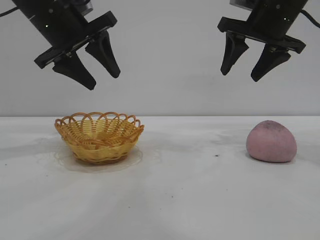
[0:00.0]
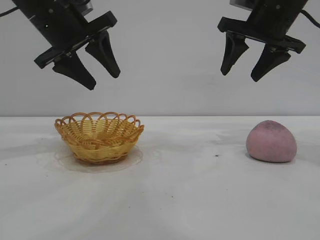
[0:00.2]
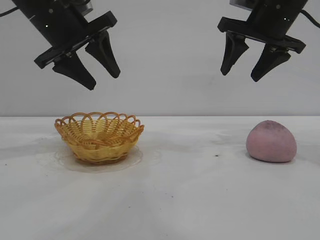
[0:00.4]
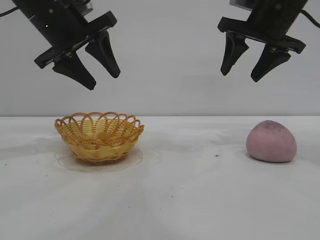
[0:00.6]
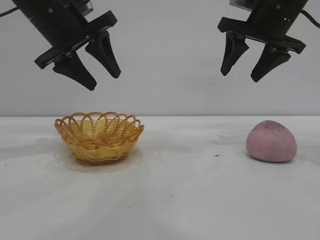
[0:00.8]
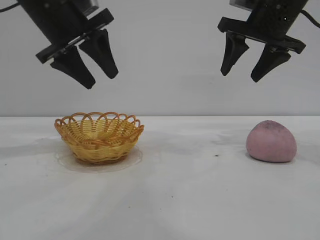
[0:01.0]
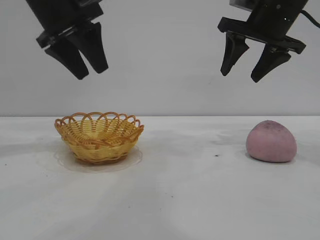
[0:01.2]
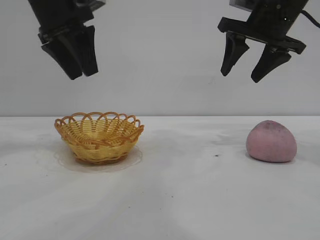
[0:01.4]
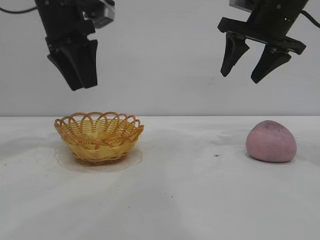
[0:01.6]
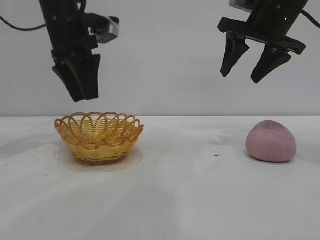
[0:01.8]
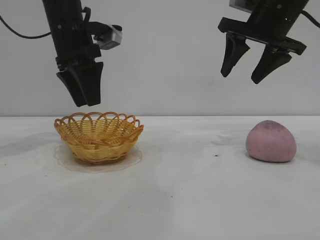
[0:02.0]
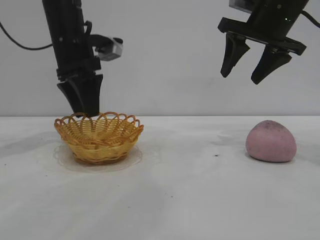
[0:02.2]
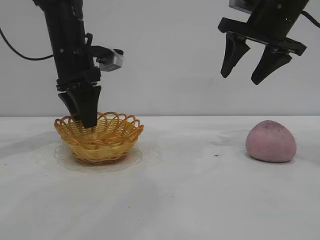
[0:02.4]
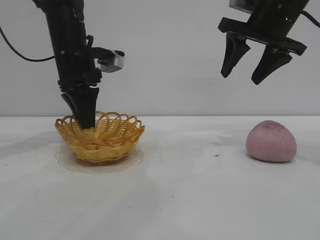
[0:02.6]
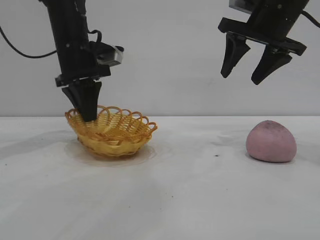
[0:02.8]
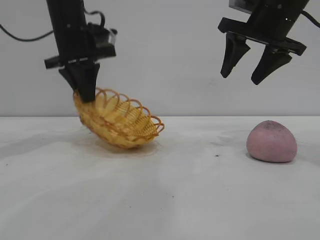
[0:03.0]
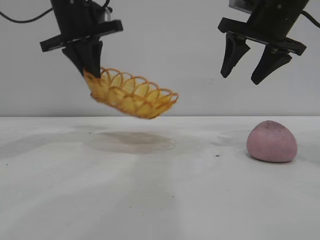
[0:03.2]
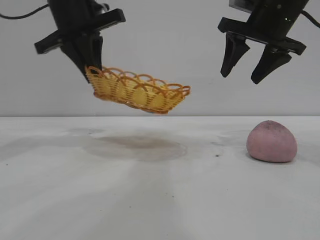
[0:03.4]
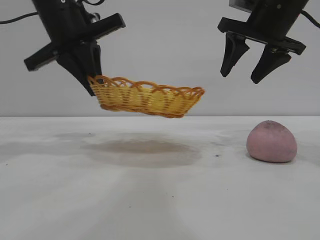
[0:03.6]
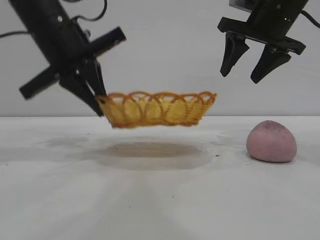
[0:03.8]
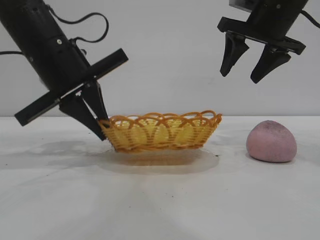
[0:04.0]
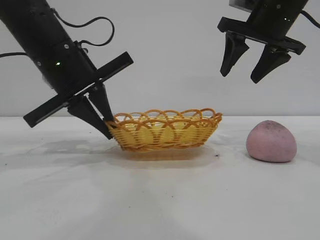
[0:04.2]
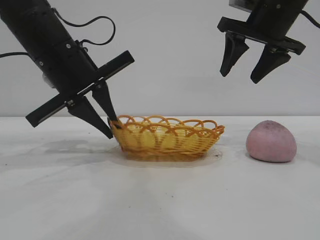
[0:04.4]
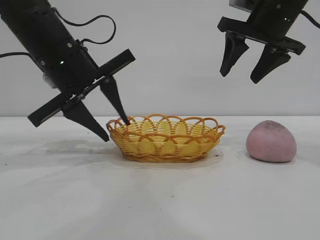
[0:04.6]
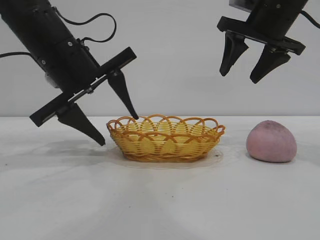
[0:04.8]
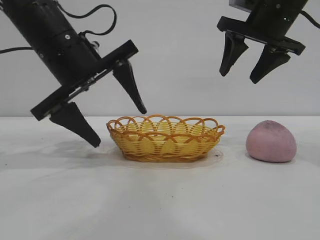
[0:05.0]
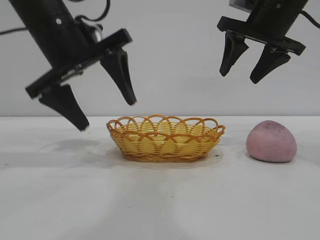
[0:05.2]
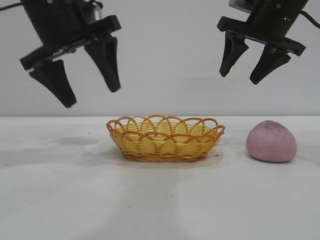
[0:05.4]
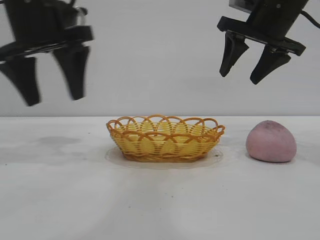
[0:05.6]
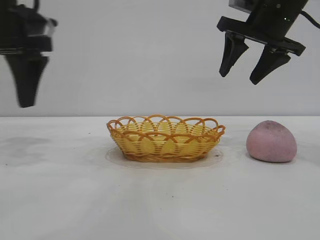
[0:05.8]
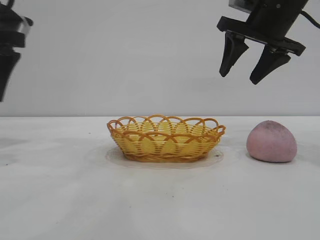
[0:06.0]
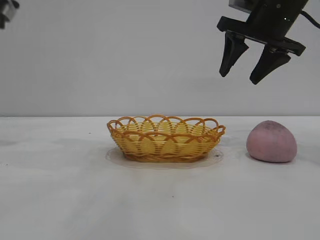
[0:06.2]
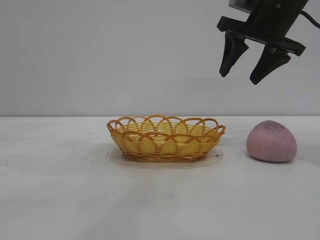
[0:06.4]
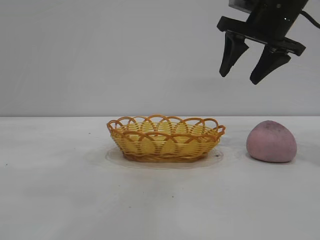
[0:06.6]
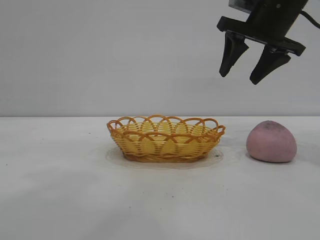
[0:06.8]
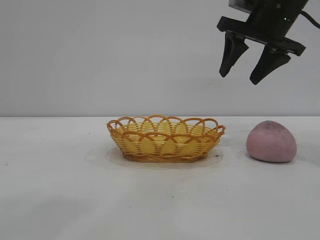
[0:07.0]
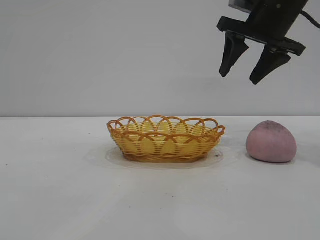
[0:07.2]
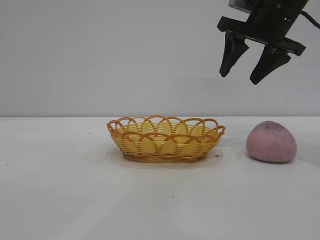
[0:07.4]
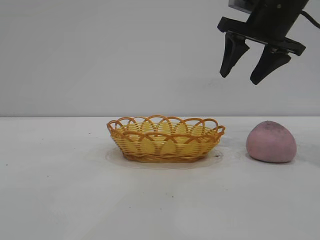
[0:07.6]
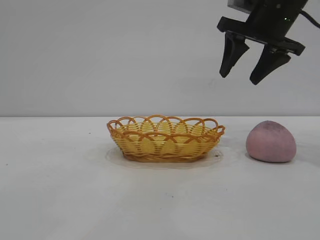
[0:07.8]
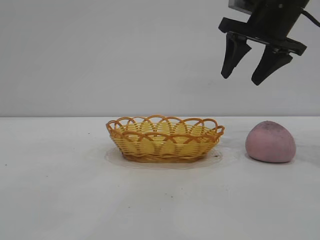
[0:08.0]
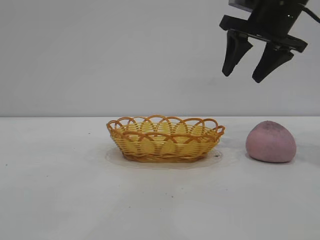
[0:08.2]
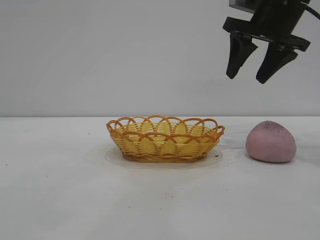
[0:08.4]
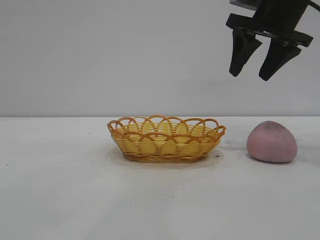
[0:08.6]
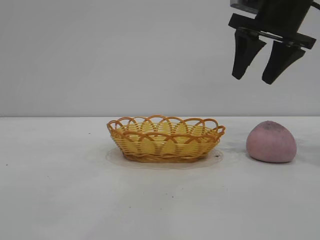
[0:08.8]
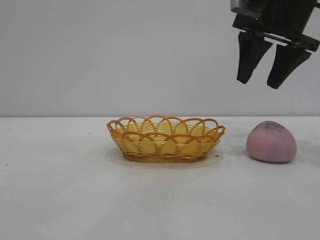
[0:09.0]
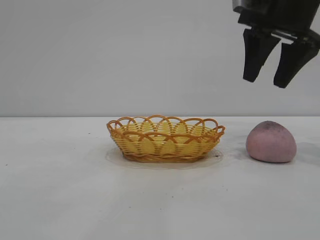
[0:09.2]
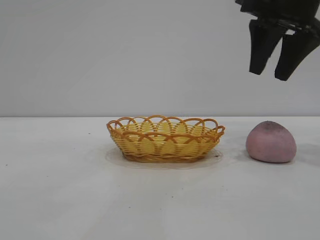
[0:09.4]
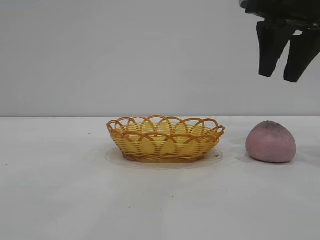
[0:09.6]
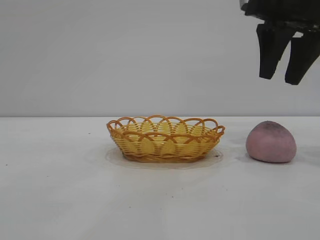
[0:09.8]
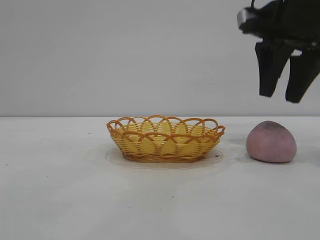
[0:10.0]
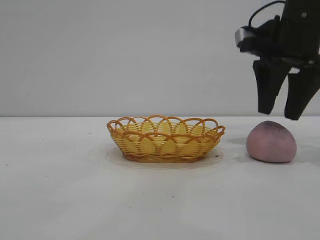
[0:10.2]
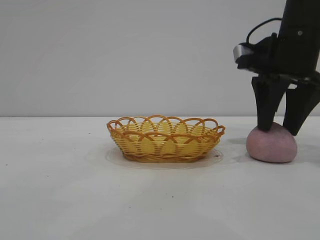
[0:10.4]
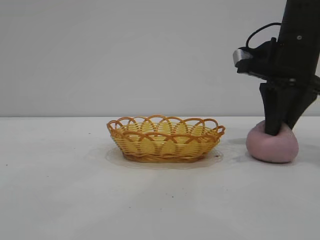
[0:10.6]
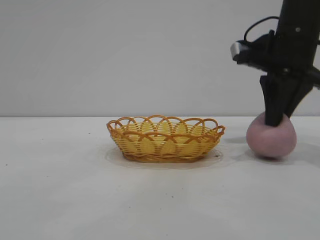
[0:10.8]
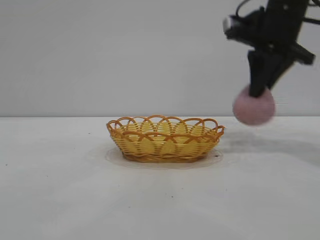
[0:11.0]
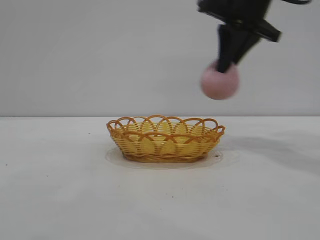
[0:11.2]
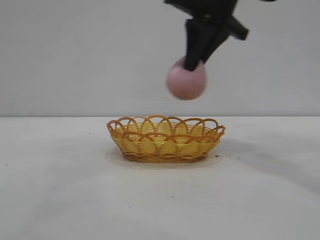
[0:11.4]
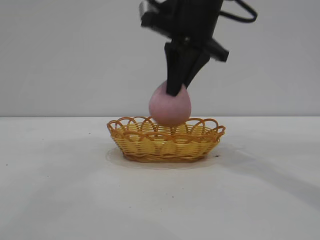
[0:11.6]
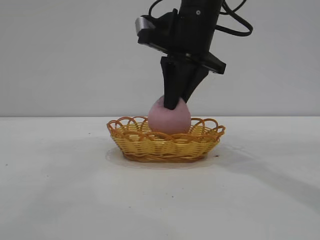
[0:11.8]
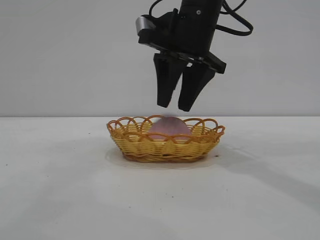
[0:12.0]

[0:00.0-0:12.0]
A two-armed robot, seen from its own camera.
Task of the whole recording: pick up the peach and put it into the basket.
Step, 0:00.0 to 0:05.4: Move the basket to the center of view.
Step, 0:05.6 to 0:11.0: Pick up the peach.

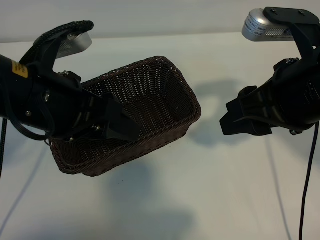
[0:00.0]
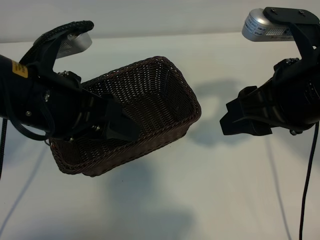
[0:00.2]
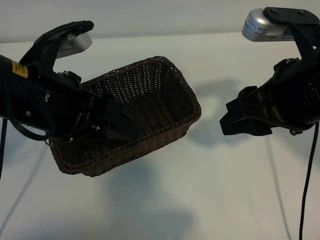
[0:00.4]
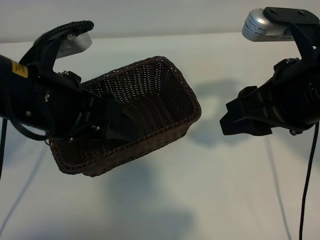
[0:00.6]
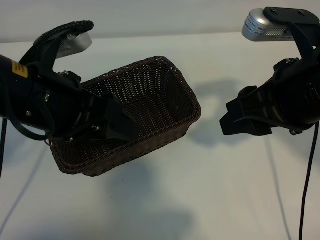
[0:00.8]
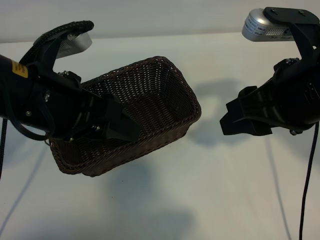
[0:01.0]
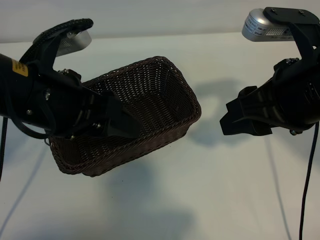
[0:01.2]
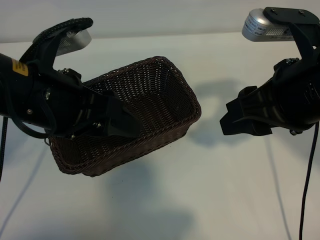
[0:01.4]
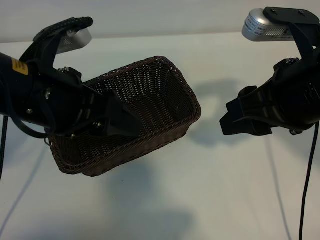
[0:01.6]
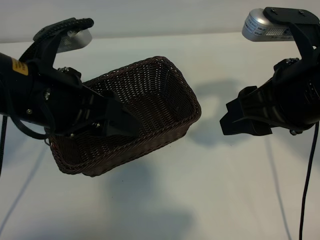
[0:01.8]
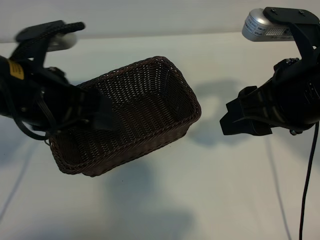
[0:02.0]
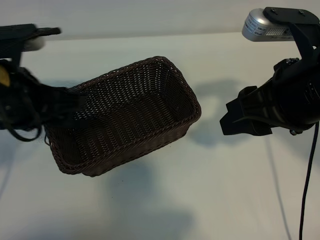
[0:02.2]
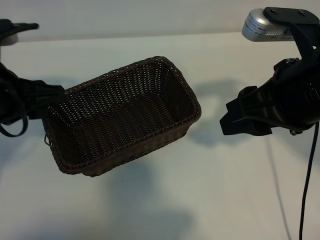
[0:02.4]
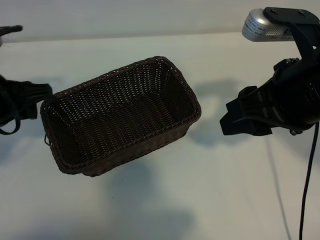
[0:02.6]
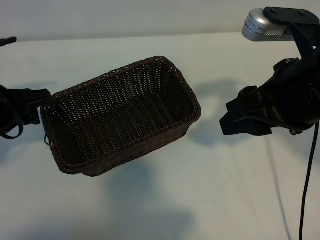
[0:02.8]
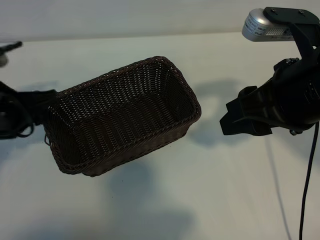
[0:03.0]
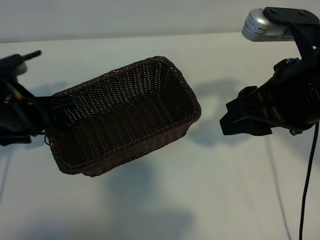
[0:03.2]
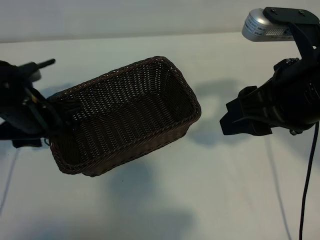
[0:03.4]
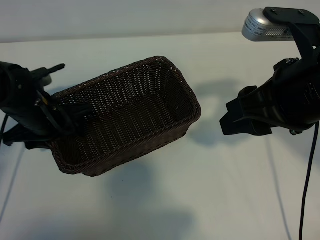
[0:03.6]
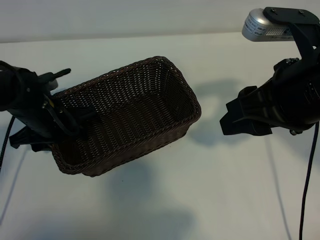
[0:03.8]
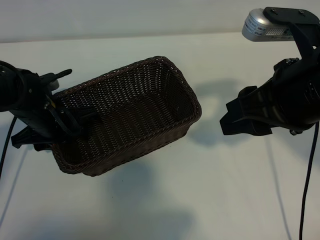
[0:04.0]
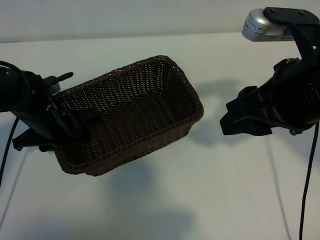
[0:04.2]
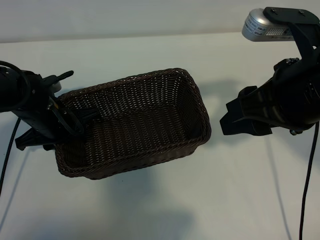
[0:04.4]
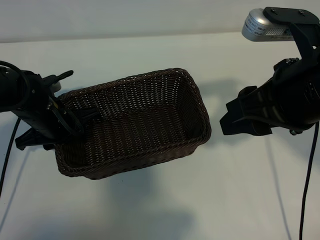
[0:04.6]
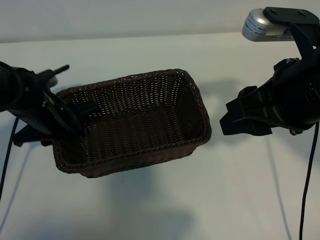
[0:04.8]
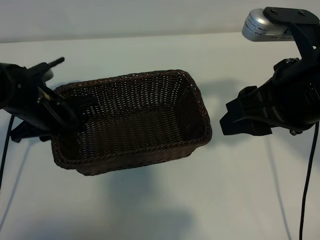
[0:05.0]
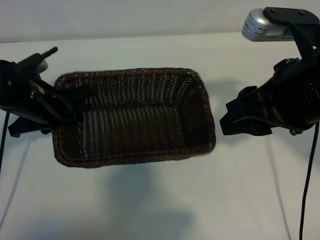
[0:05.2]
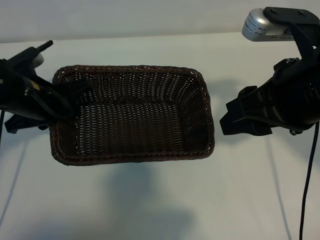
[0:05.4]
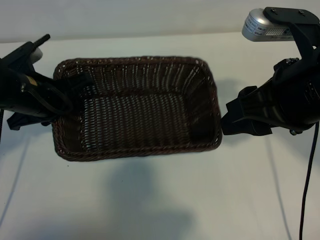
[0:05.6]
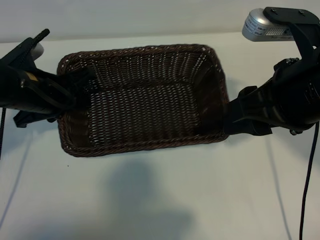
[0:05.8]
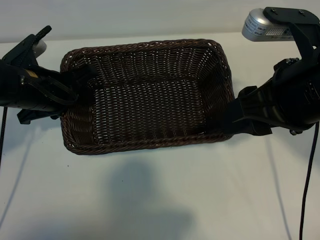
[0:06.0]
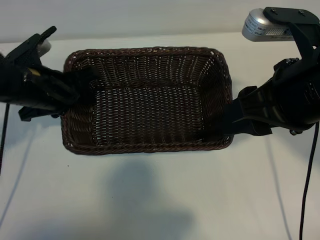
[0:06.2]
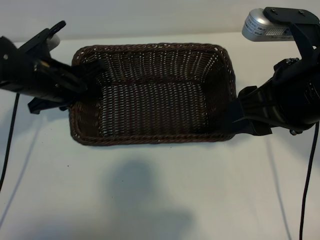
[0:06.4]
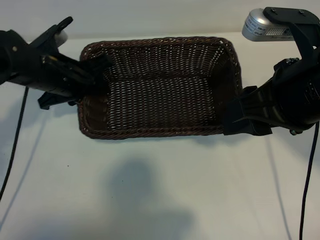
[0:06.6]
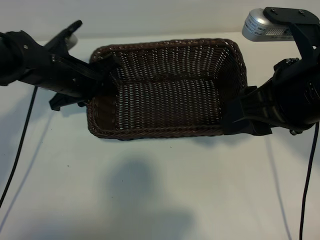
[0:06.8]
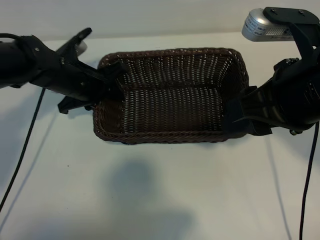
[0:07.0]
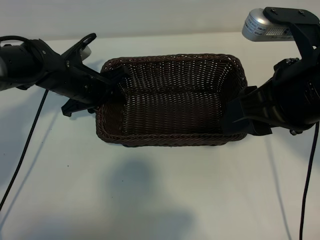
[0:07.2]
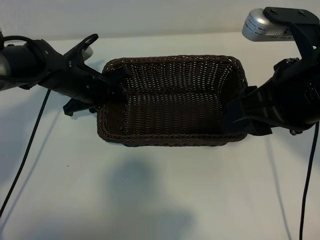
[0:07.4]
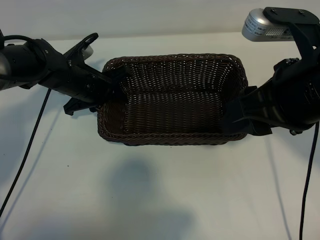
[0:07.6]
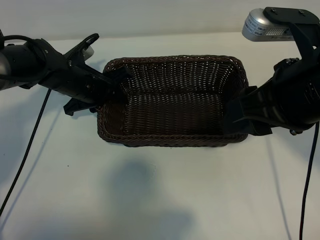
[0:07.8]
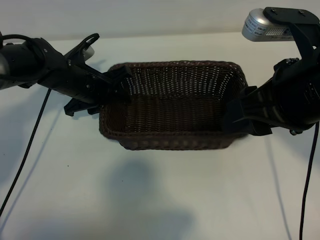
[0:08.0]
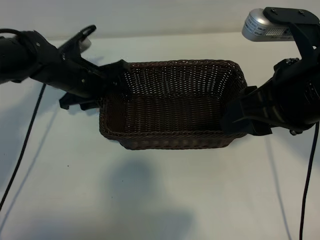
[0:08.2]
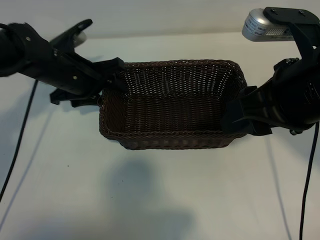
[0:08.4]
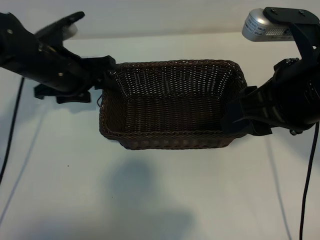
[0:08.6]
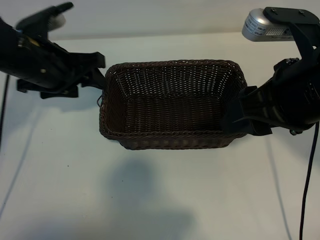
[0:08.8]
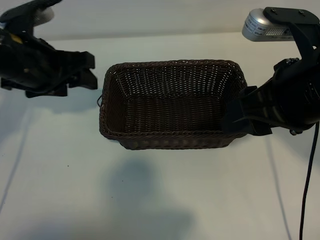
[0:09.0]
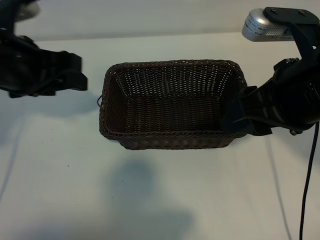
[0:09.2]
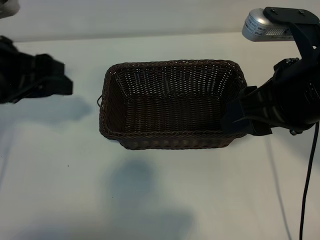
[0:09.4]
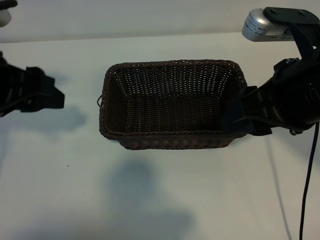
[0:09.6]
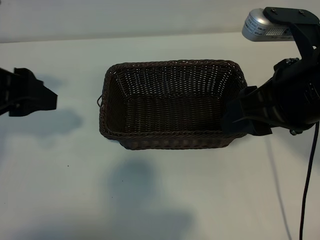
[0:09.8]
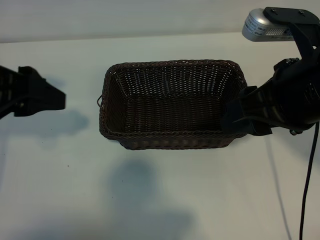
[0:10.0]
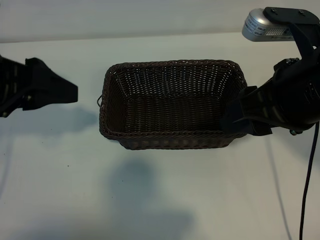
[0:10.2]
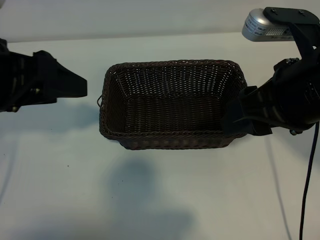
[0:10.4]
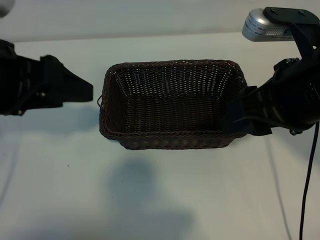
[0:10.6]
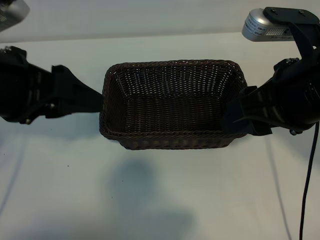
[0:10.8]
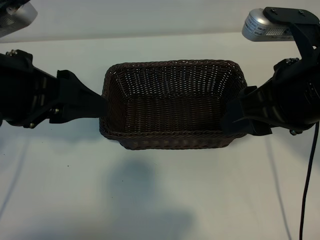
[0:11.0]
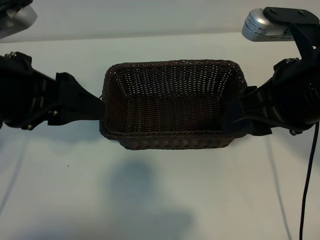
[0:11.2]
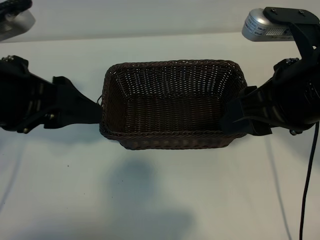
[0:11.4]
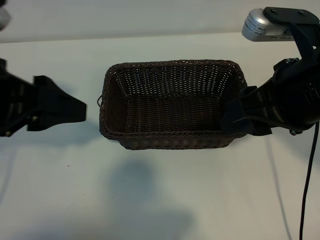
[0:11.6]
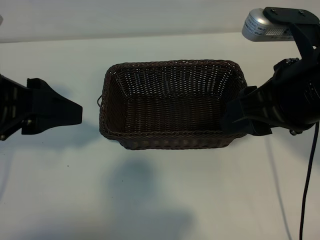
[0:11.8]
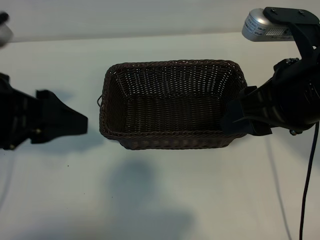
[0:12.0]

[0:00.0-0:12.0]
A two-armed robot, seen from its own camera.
Task of the whole recording: pick up the peach and put it into the basket.
Step, 0:01.2 to 0:04.4: Grasp the basket with left gripper.
Step, 0:04.8 to 0:08.4: Place the basket in the center of view with left gripper.
